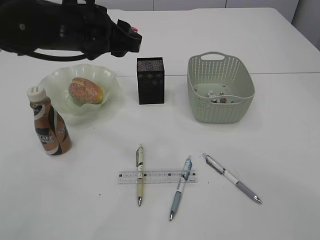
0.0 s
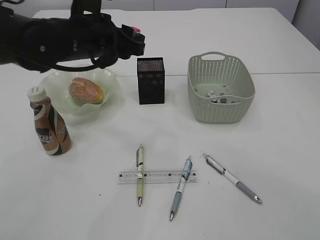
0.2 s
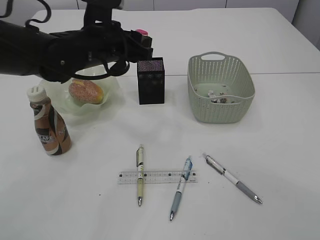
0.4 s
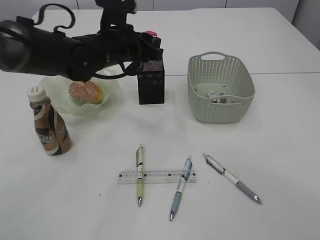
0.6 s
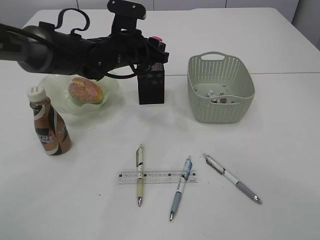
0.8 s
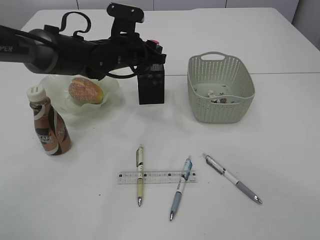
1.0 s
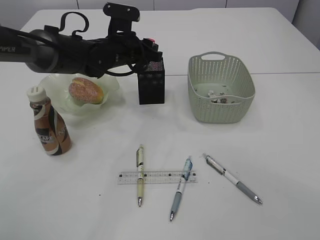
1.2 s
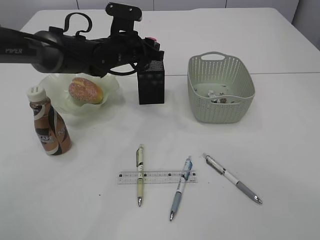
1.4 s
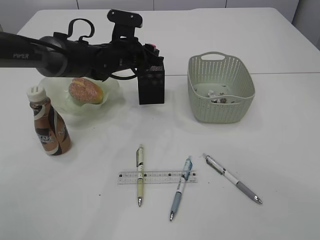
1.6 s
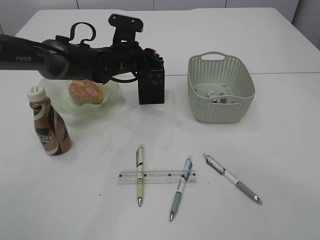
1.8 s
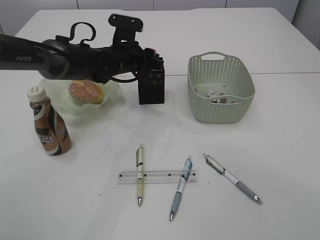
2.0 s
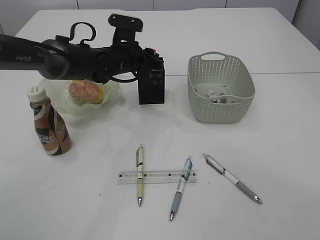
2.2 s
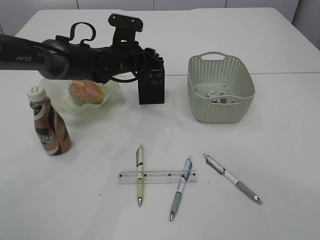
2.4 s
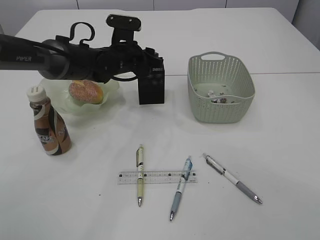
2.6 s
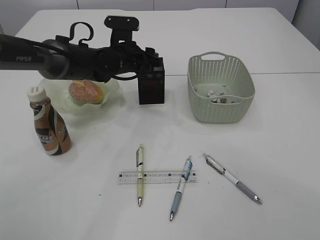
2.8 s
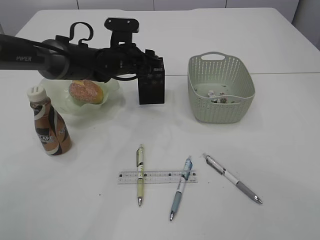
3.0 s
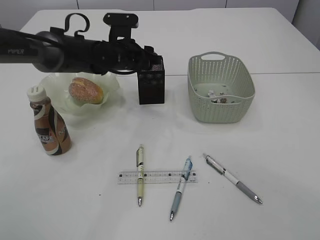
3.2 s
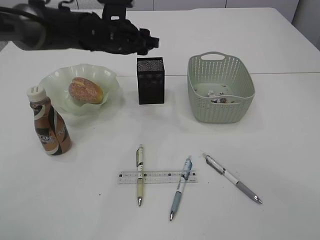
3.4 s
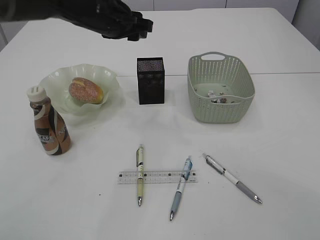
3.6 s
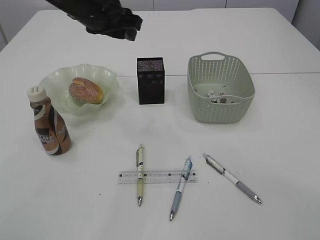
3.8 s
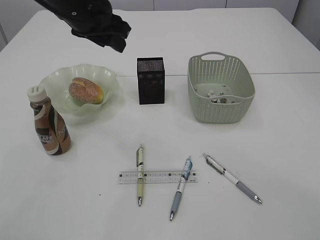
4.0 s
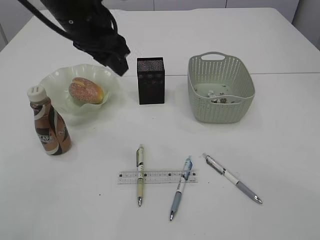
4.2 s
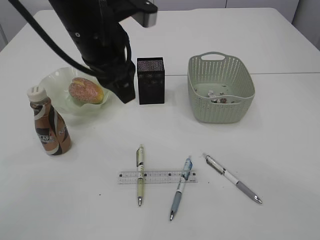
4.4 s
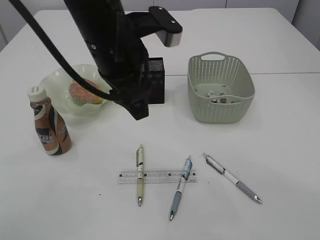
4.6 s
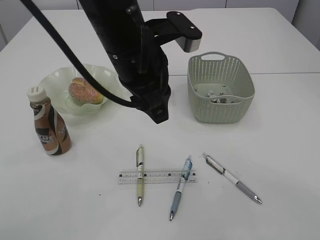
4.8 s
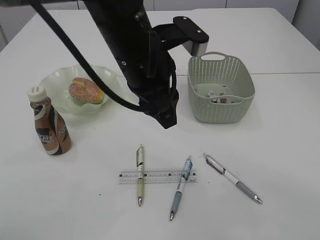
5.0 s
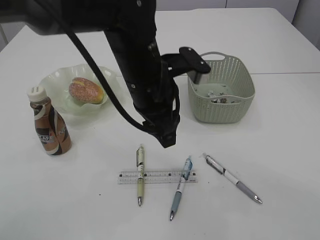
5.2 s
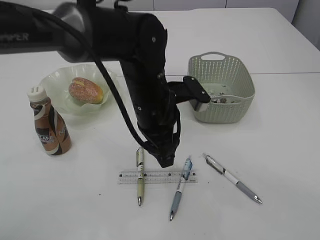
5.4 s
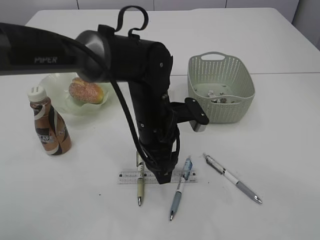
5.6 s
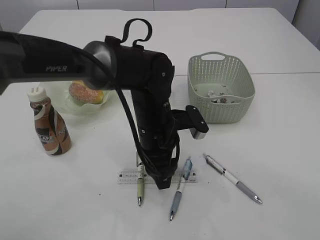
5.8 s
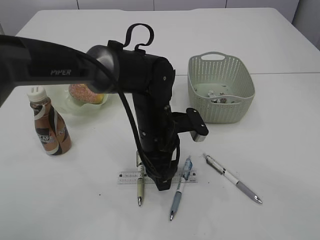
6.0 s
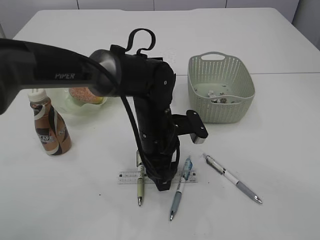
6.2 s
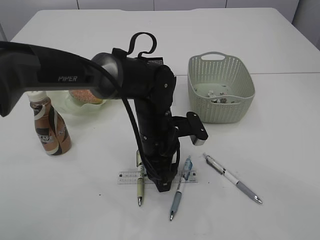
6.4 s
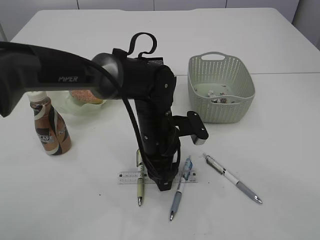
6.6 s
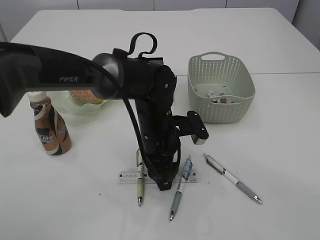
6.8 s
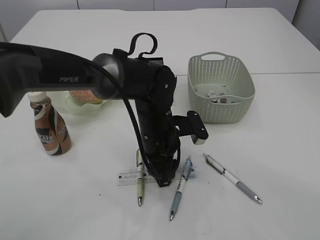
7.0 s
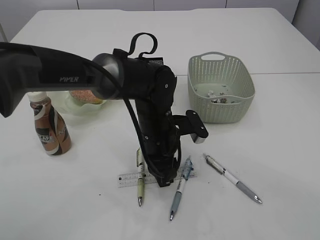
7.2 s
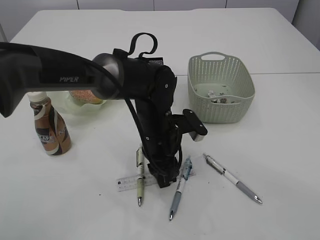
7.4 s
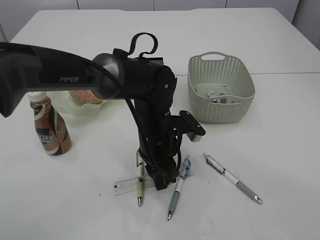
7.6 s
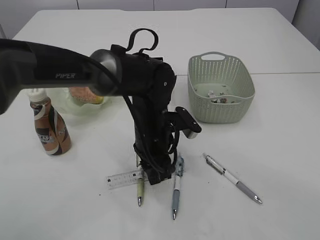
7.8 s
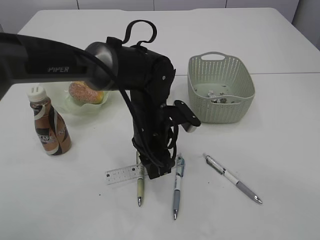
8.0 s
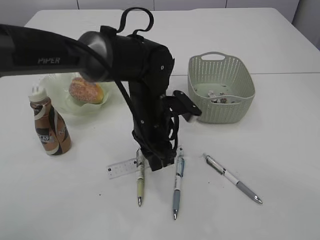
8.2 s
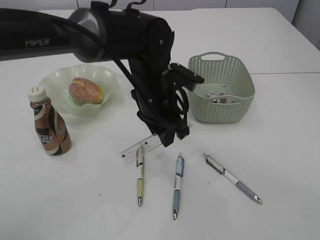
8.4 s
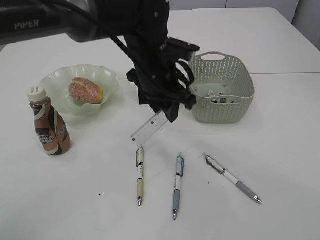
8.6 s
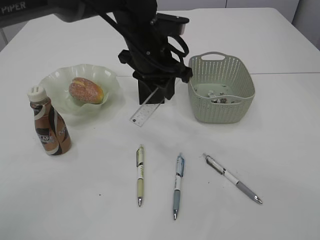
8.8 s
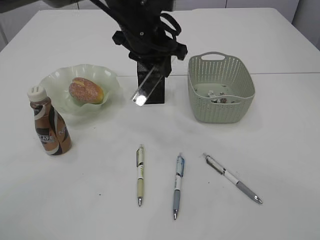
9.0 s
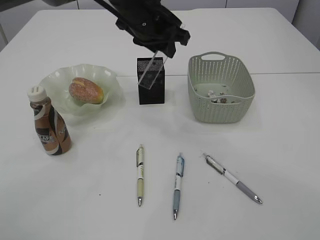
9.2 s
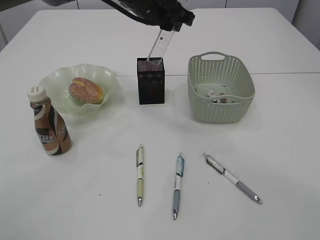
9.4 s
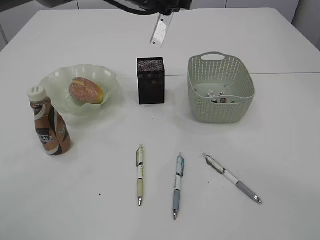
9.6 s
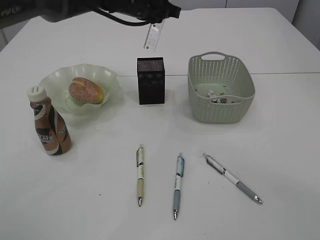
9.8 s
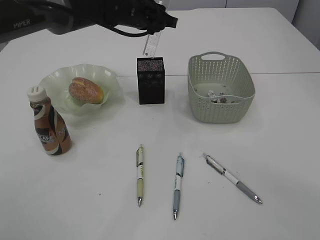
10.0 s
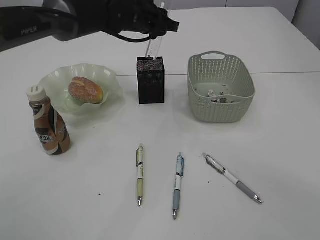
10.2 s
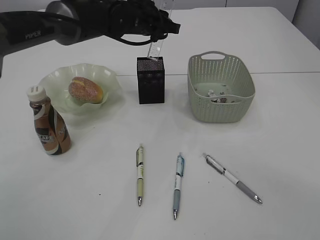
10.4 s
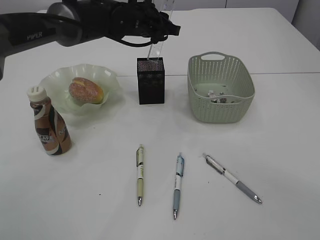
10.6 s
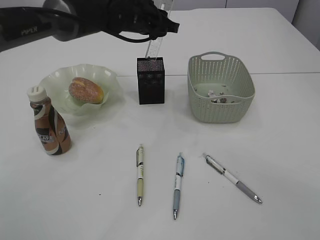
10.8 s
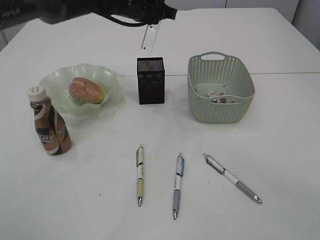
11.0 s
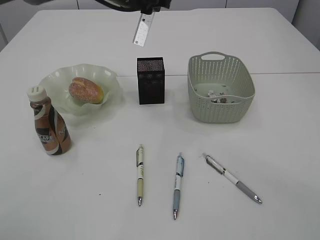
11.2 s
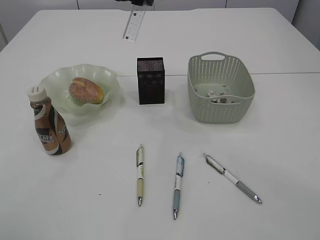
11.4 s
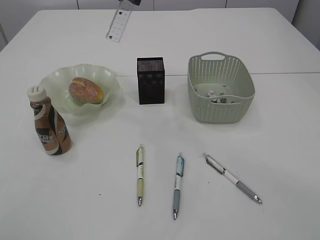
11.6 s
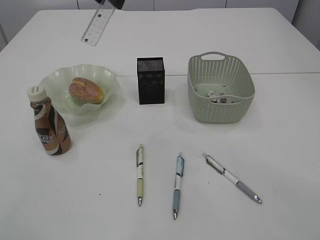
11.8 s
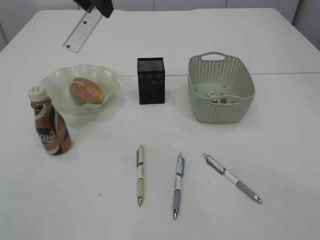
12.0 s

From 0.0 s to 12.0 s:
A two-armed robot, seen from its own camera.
Step, from 0.0 s to 3.2 s: Place the red pencil sharpener into the pen holder.
Step, from 3.4 s to 8.4 s: pick up the ruler.
From 0.0 s to 1.6 s: The left gripper travels forward and downward by approximately 20 cm.
From 1.6 s to 3.0 s: The left gripper opens.
From 3.0 s to 4.4 s: The left gripper travels backward and upward by approximately 20 cm.
From 4.4 s to 6.0 s: The left gripper travels downward and to the right by roughly 20 cm.
From 6.0 s to 7.6 s: The left gripper closes.
From 7.6 s to 9.0 s: The left gripper travels upward and forward by about 20 cm.
From 9.0 s to 10.4 s: The left gripper moves forward, roughly 10 cm.
From 10.4 s to 12.0 s: The left gripper travels upward, backward and to the left by approximately 20 cm.

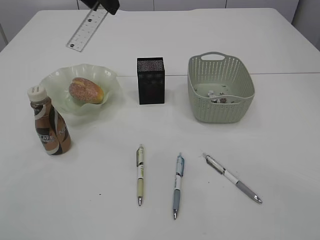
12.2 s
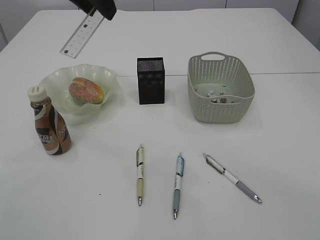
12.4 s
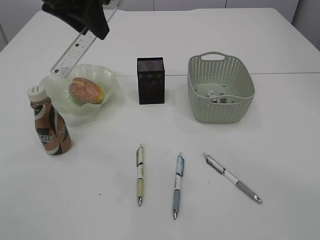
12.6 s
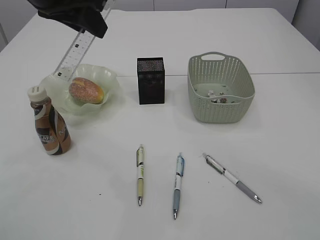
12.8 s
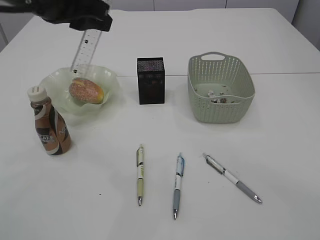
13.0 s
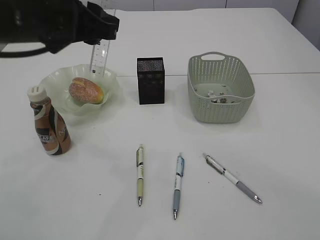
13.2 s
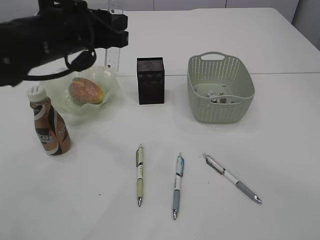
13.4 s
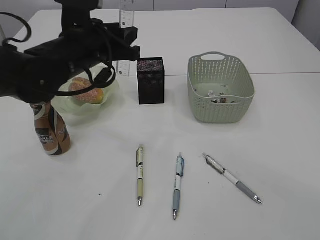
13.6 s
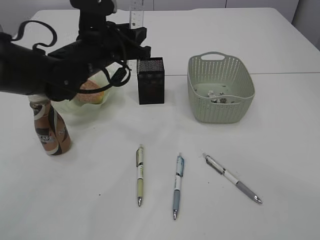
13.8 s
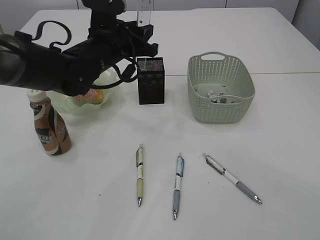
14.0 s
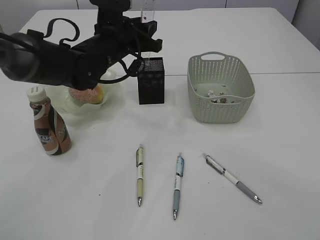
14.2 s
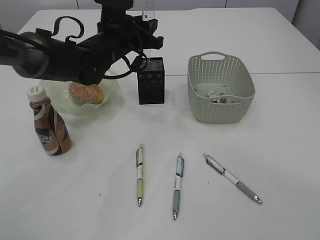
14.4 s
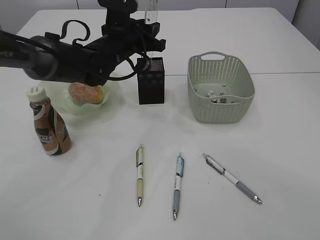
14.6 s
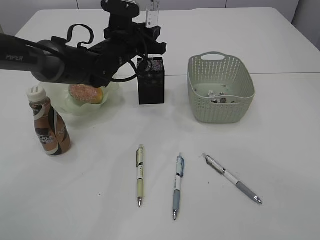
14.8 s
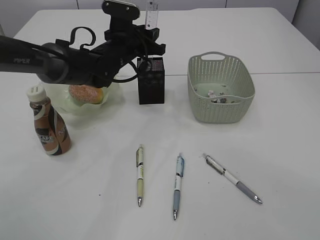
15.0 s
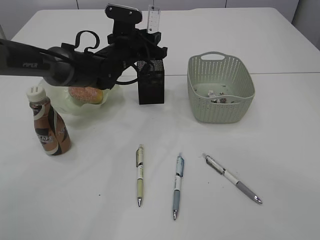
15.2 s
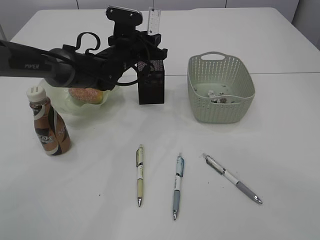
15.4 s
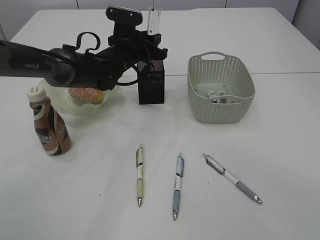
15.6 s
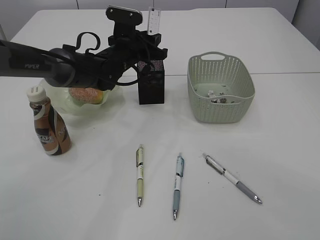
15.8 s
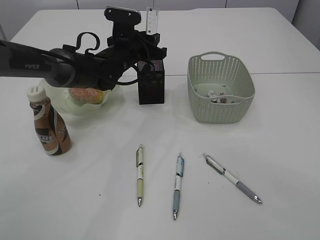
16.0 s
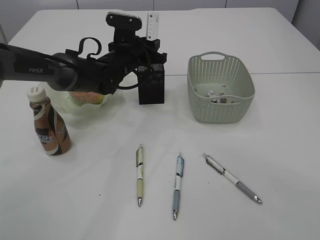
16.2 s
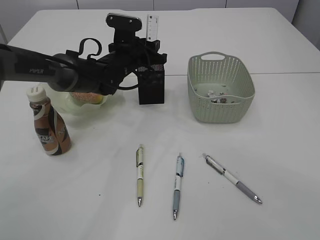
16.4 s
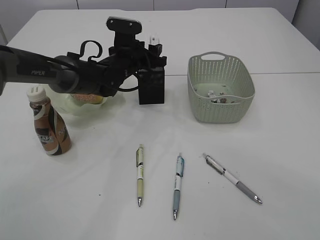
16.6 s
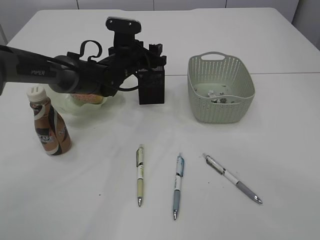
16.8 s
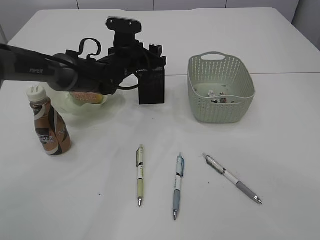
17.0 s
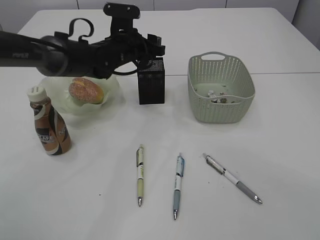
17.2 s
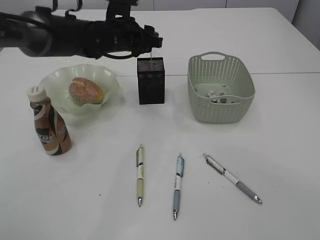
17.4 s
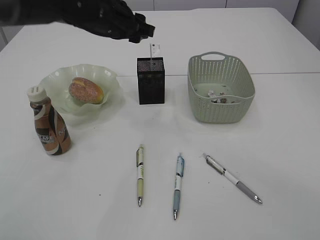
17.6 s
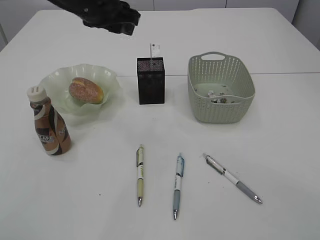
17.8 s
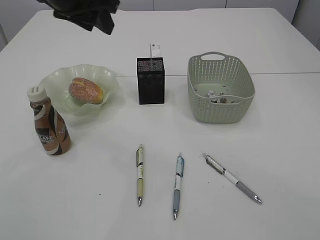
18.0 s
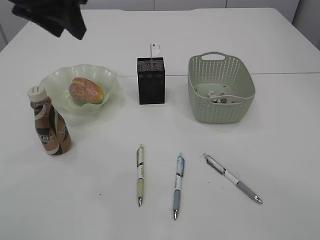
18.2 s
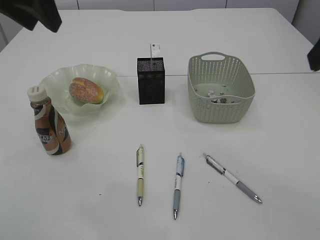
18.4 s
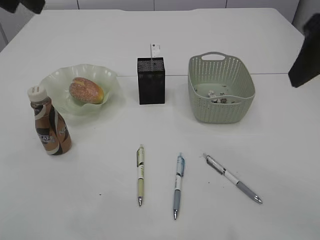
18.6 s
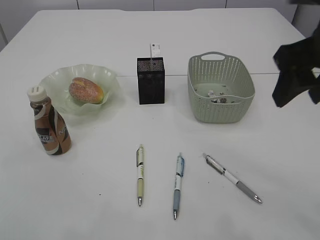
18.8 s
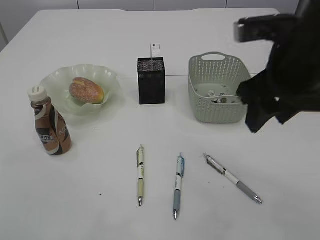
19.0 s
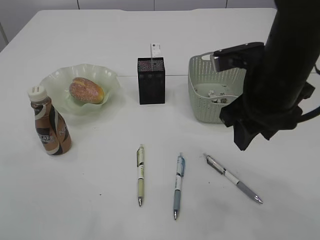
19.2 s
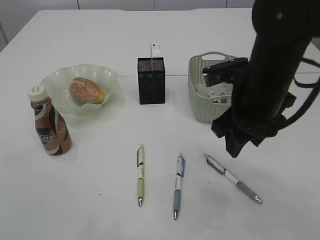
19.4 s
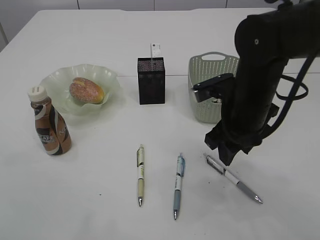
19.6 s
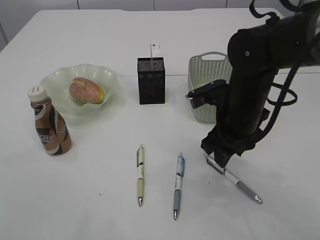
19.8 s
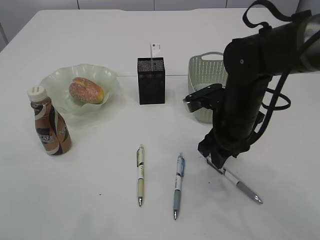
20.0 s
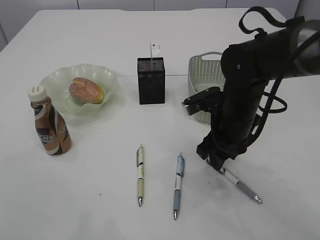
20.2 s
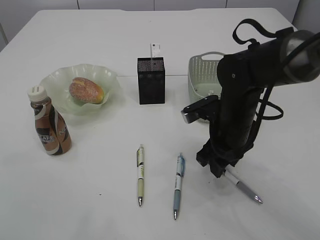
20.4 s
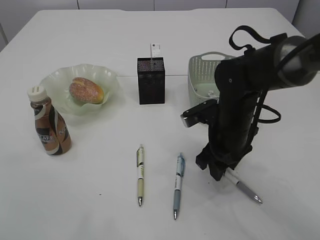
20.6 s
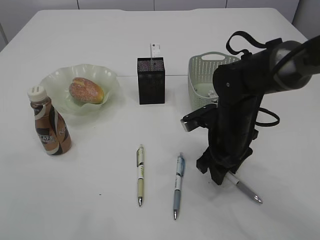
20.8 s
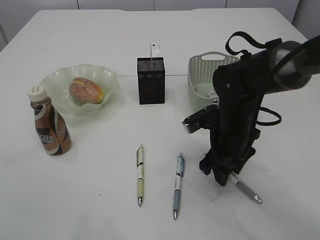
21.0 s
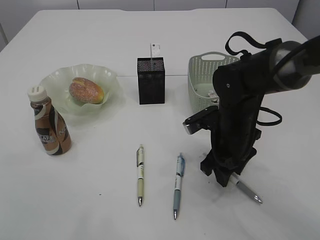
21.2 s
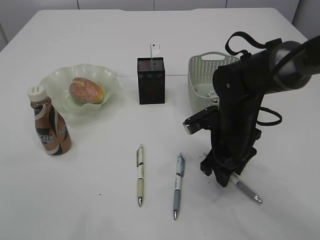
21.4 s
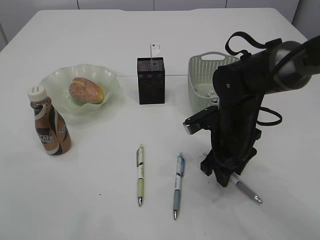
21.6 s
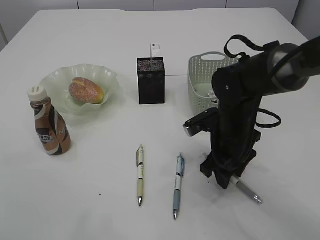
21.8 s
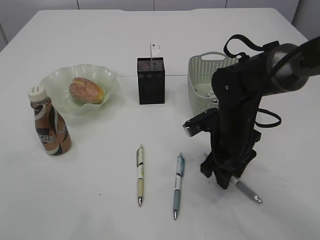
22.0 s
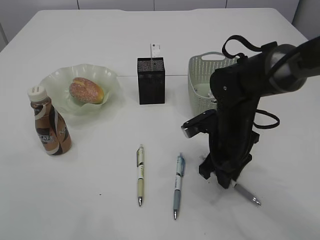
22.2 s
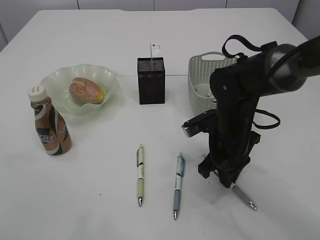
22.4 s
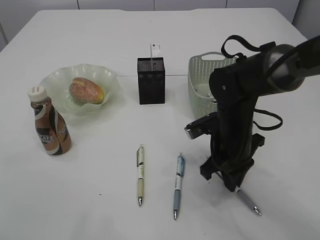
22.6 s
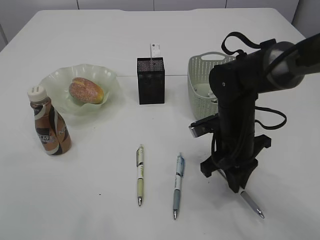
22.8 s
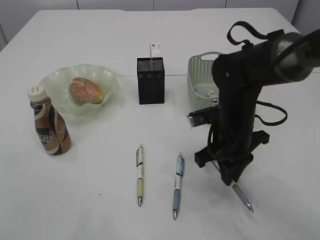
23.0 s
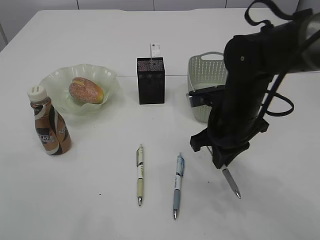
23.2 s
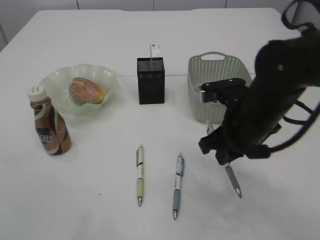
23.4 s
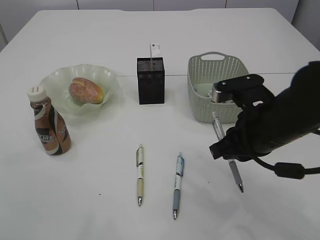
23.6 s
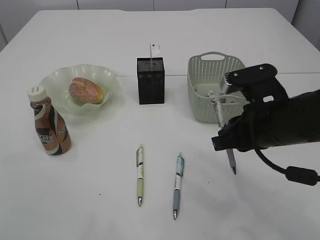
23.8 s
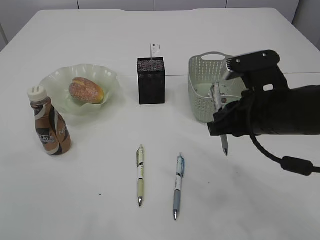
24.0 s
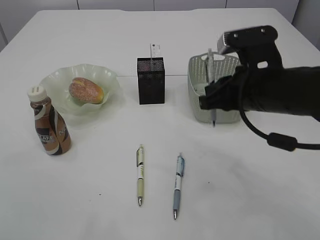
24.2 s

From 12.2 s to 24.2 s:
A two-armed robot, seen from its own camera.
Step, from 12.2 s to 17.4 s: Place the ruler into the pen holder.
Step, from 17.6 s to 23.4 s: Pick up the pen with right arm.
From 12.2 s to 13.8 s: The left gripper moves downward, roughly 15 cm.
From 13.8 s to 15.2 s: The left gripper moves forward, some 10 cm.
From 15.2 s to 16.6 s: The left gripper opens.
From 16.6 s to 18.2 s: The left gripper is displaced upward and backward by approximately 30 cm.
From 18.2 s to 19.8 s: The right gripper heads downward, forward and to the left, covering roughly 30 cm. Meanwhile the left gripper shifts approximately 15 cm backward, upward and to the left.
From 19.8 s to 21.2 s: The right gripper moves downward, approximately 5 cm.
From 21.2 s to 22.6 s: The right gripper closes.
From 22.6 s to 24.2 s: The right gripper moves upward, roughly 10 cm.
